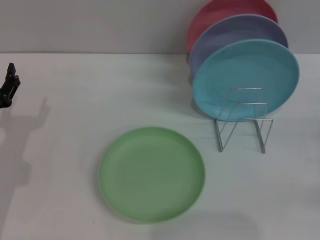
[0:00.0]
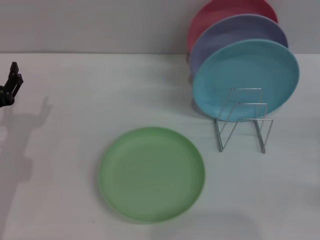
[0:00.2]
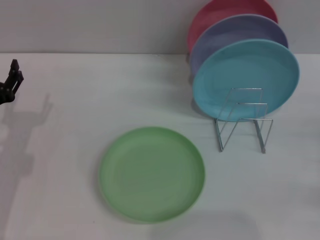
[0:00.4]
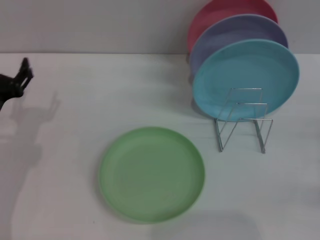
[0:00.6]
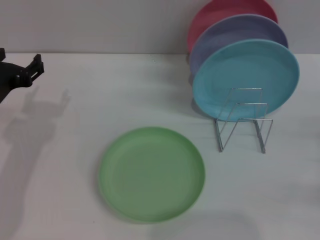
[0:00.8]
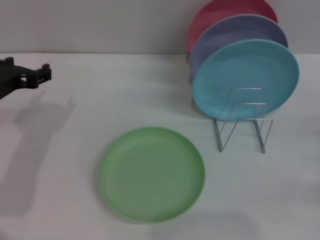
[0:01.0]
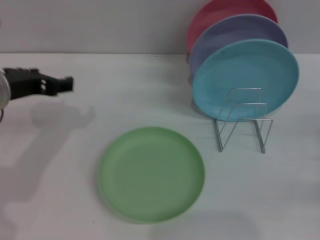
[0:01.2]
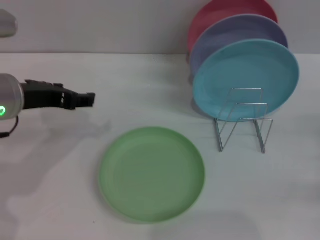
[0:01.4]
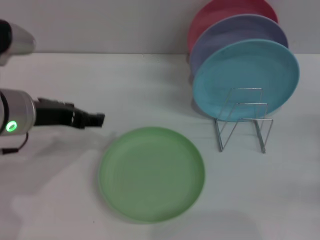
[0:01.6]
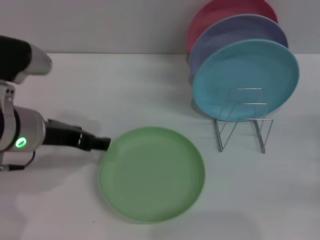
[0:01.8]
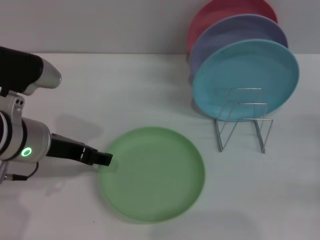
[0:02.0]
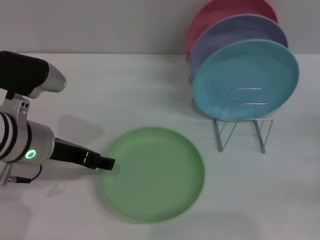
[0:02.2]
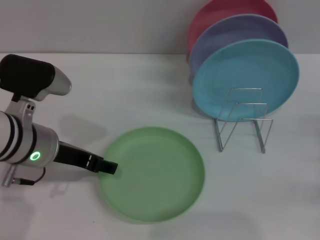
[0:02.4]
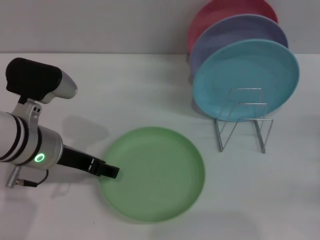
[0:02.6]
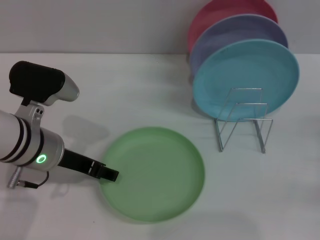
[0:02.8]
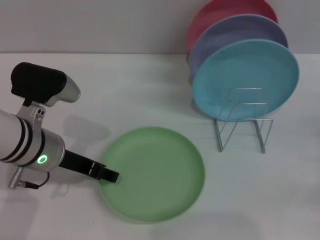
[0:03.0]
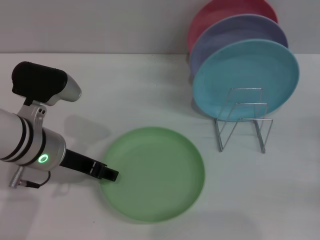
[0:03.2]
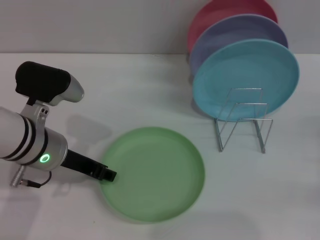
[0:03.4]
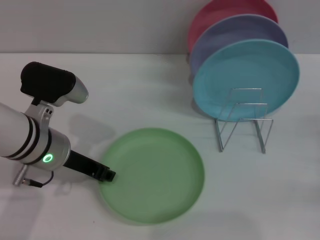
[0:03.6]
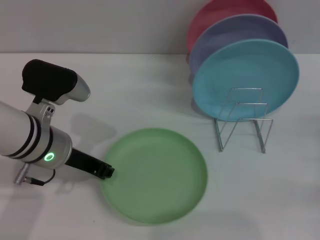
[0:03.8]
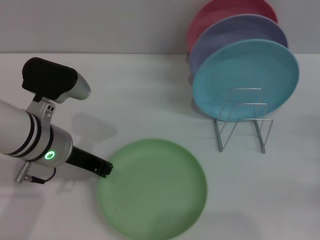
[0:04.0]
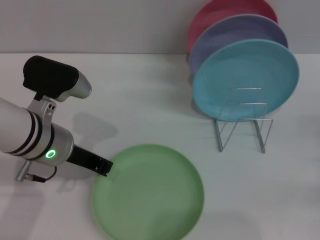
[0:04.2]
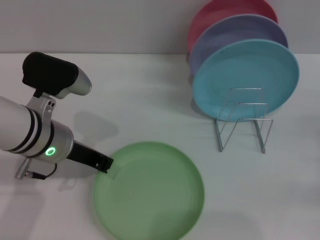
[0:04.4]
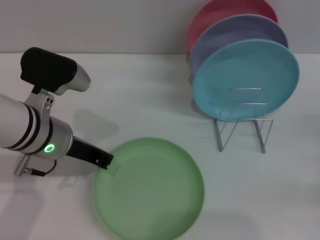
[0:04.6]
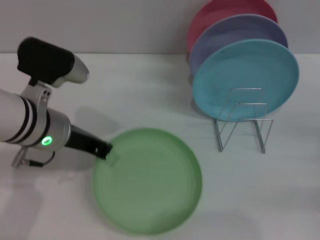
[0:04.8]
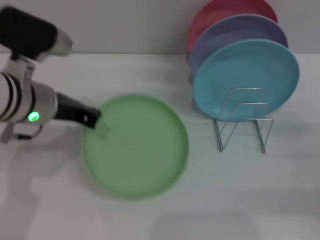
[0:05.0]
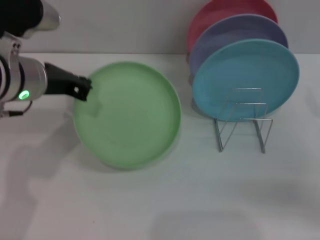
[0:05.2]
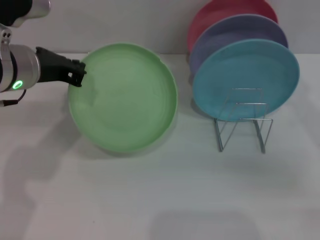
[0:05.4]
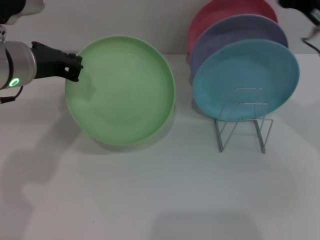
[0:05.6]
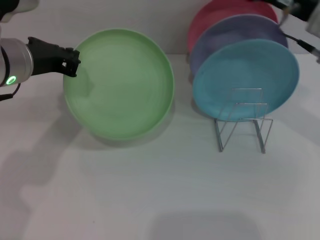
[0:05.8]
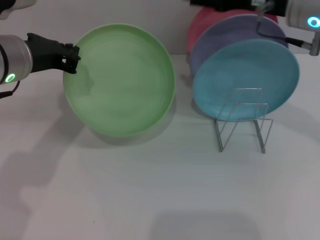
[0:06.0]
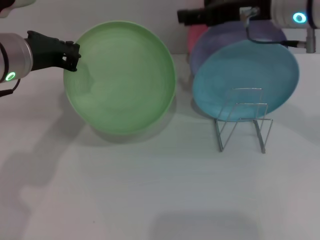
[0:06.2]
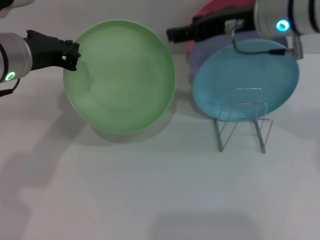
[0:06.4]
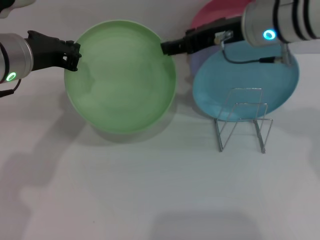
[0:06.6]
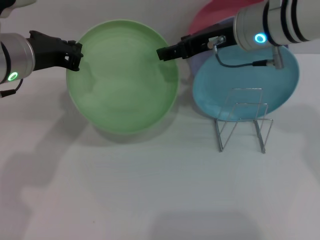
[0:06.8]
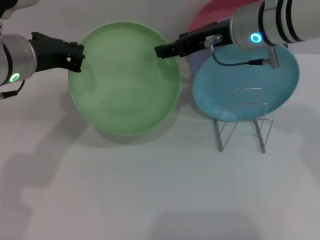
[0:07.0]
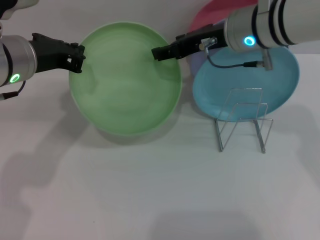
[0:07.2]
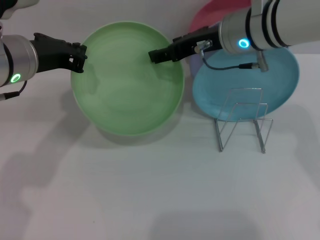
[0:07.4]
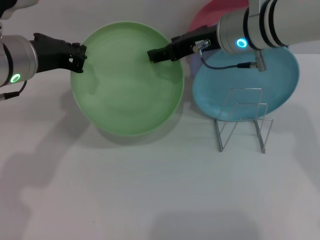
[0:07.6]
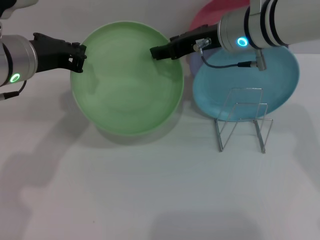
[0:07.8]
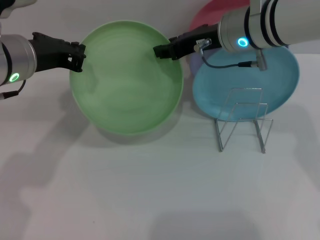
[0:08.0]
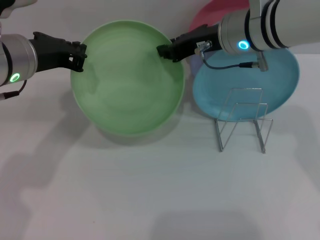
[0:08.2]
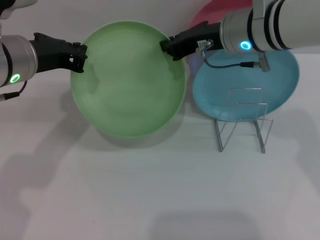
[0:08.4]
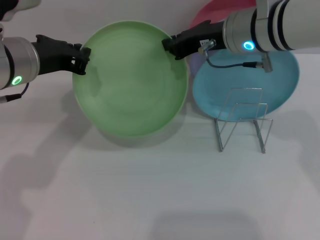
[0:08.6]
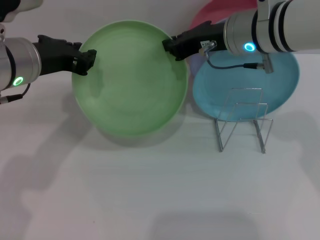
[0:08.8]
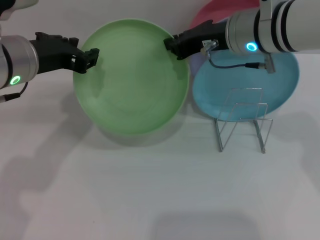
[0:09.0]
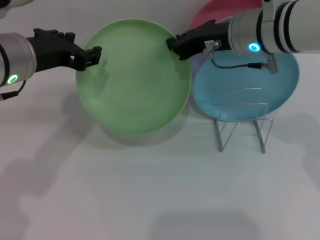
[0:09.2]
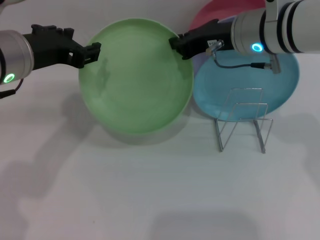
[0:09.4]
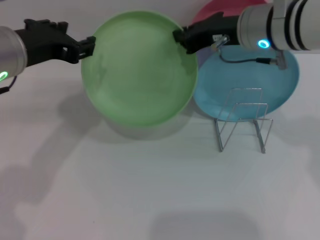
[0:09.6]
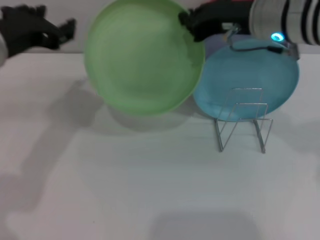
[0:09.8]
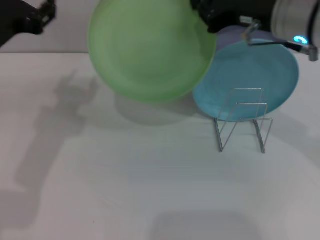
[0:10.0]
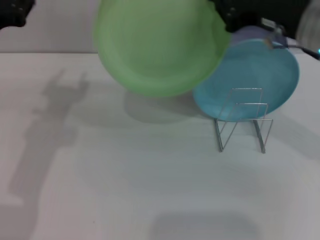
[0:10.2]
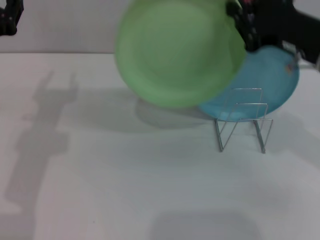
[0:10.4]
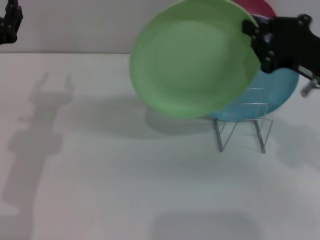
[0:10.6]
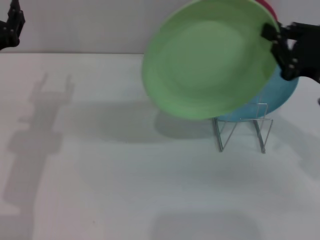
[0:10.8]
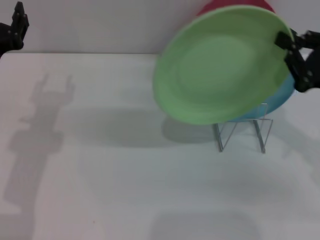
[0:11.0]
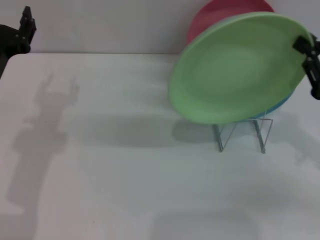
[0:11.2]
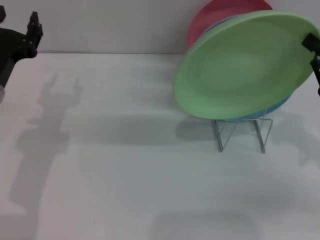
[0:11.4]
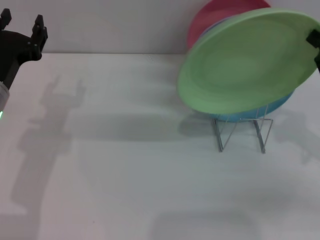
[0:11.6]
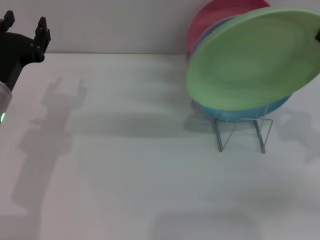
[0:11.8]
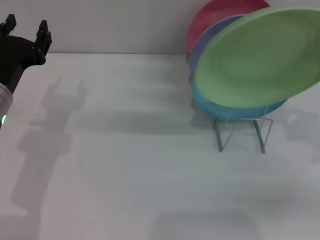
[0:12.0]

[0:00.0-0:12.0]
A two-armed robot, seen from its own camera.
Task of the whole recording: Grip the plate with one hand, pass it to the other, then set it on the shelf.
Step, 0:00.0 to 0:06.0: Pick up the plate with the left gripper.
Step, 0:06.2 to 0:12.0: Pass the plate from the left gripper to the right gripper.
0:00.0 to 0:01.6: The left gripper shifts some 15 cm upward and to the right.
0:01.6 to 0:03.0: The left gripper travels downward by some 5 cm.
0:03.0 to 0:04.4: The left gripper closes its fingers.
0:04.4 to 0:06.0: The right gripper moves upward, to the left and forward, approximately 30 cm, while the left gripper goes about 10 cm upward.
0:06.0 to 0:07.6: The right gripper shifts roughly 5 cm to the left.
0:07.6 to 0:09.0: The right gripper closes its fingers.
0:09.0 to 0:10.4: The right gripper shifts some 10 cm to the right and backward; the left gripper changes place by some 5 cm, and opens.
0:10.4 to 0:12.0: The left gripper shifts by approximately 5 cm; the right gripper moves to the right, downward and backward, about 15 cm.

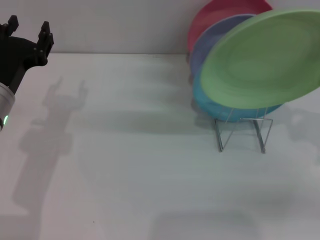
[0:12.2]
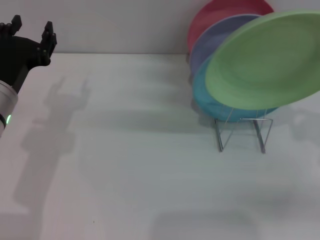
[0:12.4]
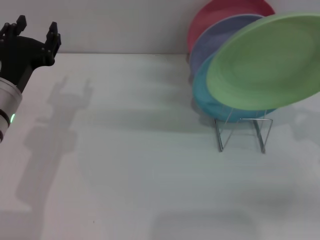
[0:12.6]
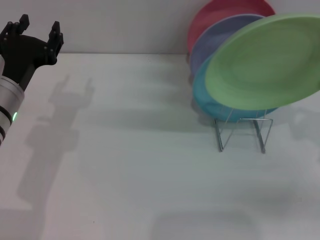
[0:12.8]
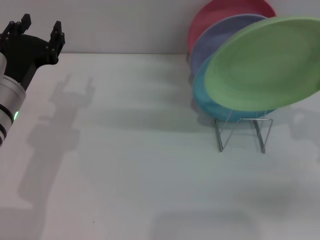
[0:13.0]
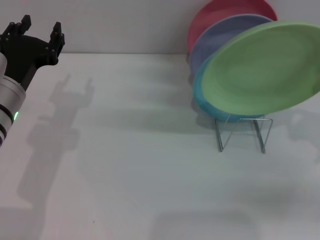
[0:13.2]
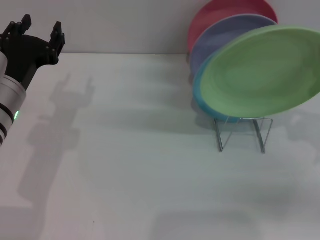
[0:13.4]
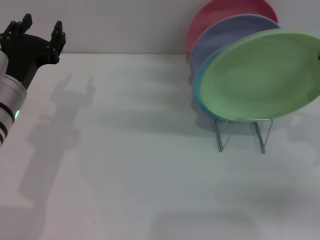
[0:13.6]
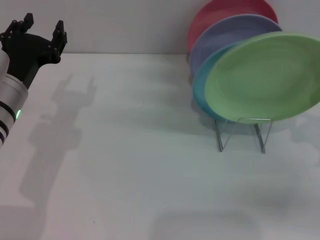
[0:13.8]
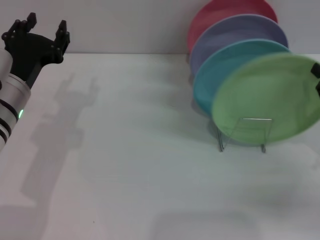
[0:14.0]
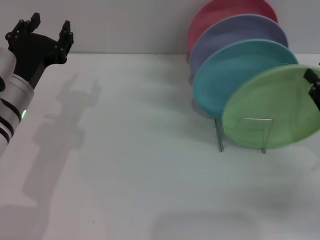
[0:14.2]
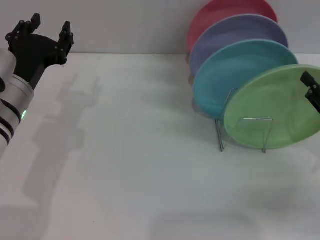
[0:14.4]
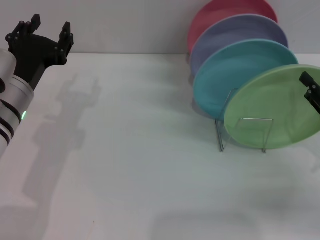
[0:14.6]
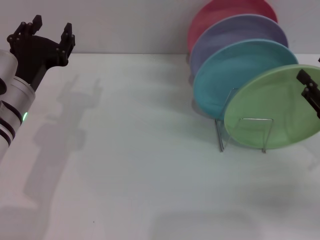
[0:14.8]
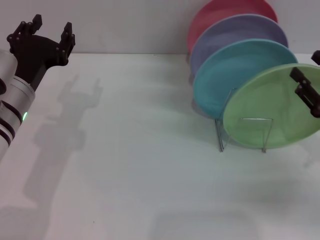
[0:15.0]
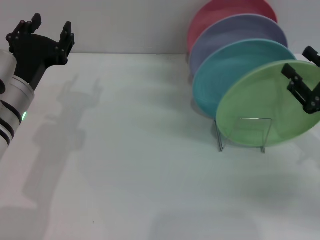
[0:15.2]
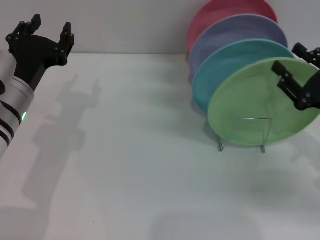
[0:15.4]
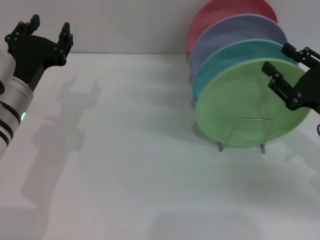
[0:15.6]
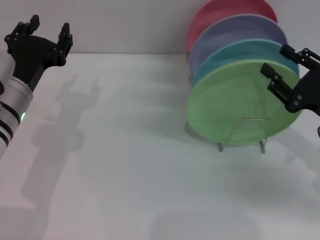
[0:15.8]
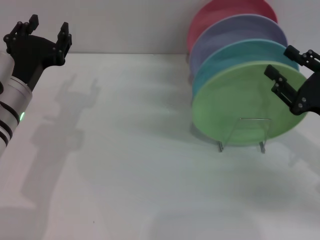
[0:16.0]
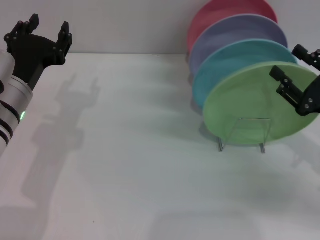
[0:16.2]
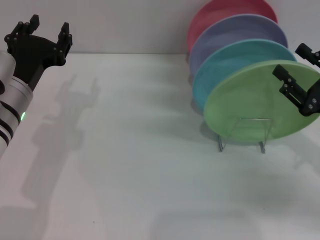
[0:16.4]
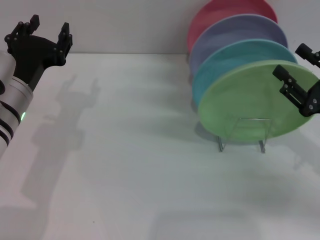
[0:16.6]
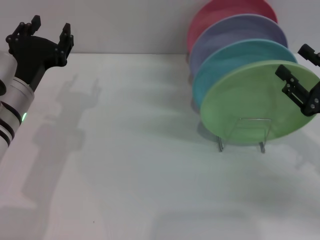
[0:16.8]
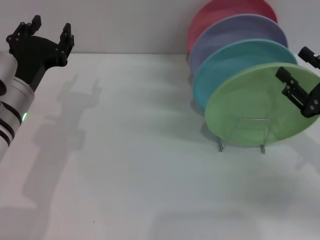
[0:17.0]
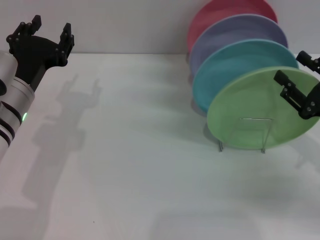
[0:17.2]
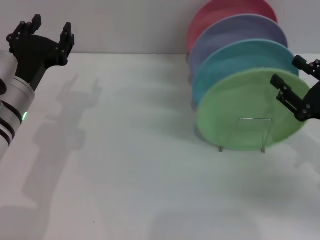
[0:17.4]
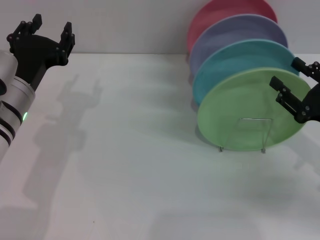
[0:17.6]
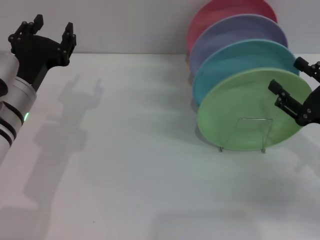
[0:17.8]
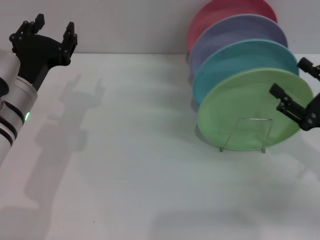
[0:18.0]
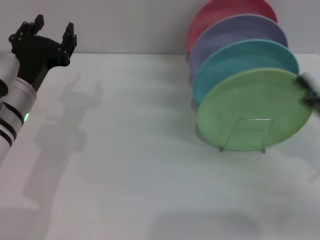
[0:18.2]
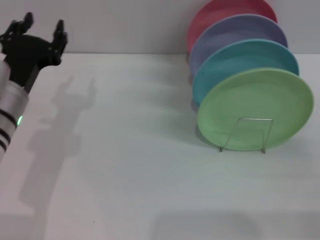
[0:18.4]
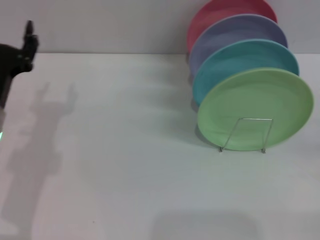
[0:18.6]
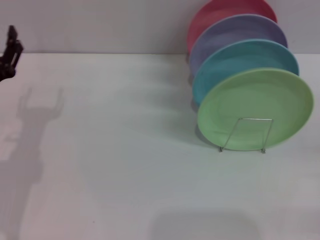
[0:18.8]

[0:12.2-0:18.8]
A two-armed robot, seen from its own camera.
Task of the whole recording: Grip the plate with one hand, pass it to the other, then set it on the shelf.
Step, 0:12.2 to 0:16.0: Place the plate on the shelf with the right gripper.
0:12.2 to 0:13.8: The grippers make only small movements.
0:13.8 to 0:15.4: The right gripper opens.
0:15.4 to 0:17.2: The grippers move only a little.
0:17.2 to 0:18.8: The left gripper goes approximately 5 cm to the left. Meanwhile the right gripper is displaced to the right and backward by some 10 cm.
